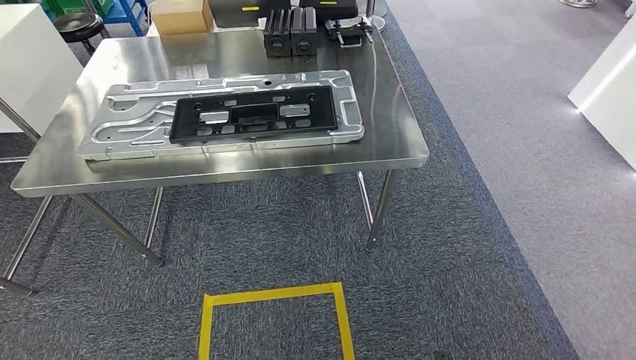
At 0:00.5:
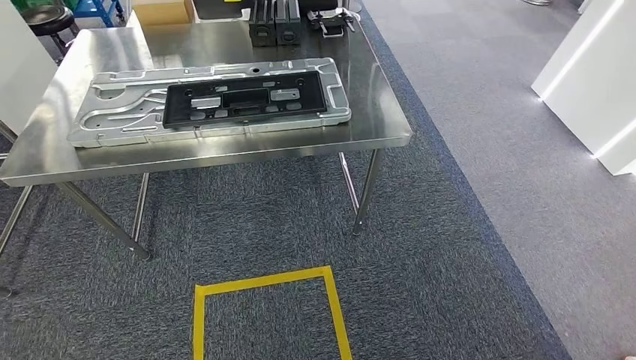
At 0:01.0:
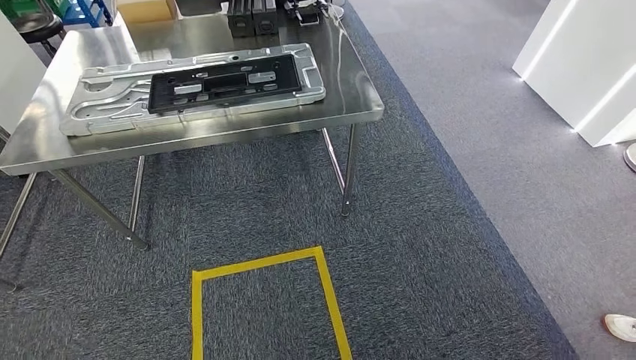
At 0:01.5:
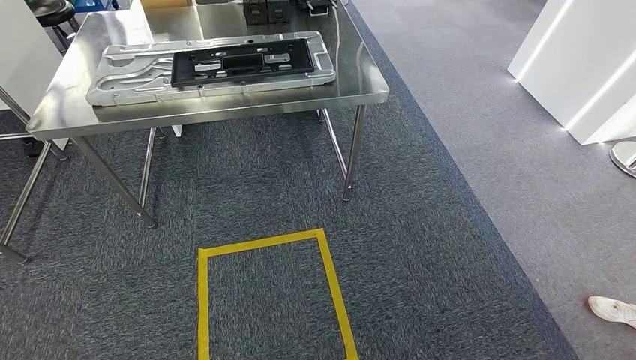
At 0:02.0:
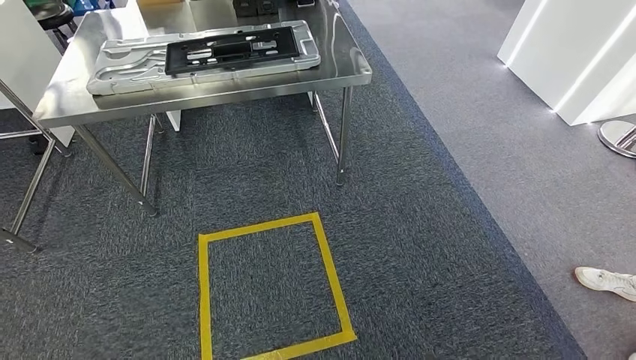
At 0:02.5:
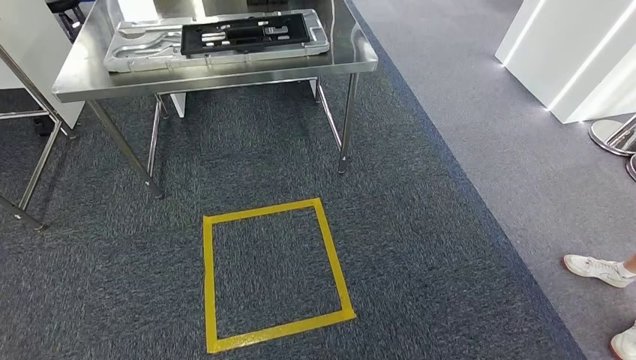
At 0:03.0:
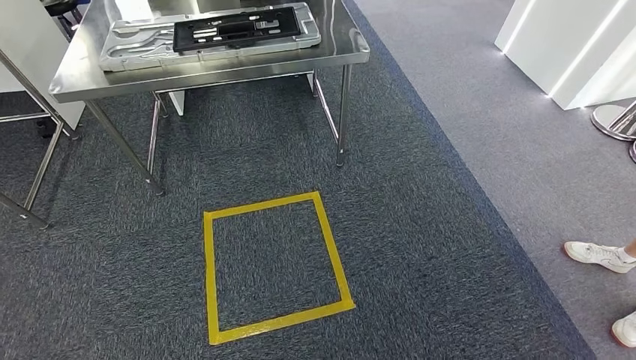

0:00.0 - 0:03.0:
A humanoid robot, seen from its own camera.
Step, 0:00.0 - 0:03.0: Return to the initial position at the shelf.
